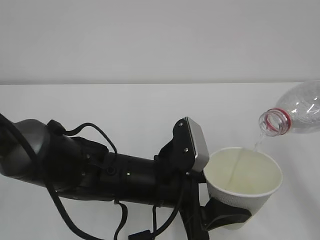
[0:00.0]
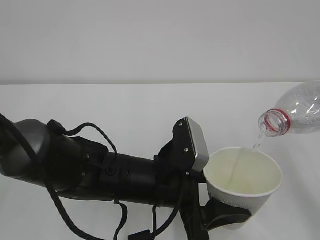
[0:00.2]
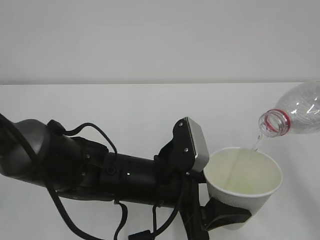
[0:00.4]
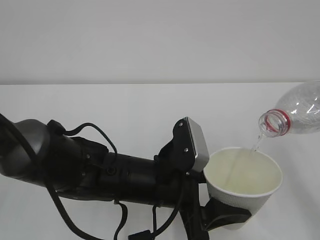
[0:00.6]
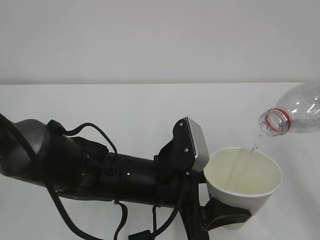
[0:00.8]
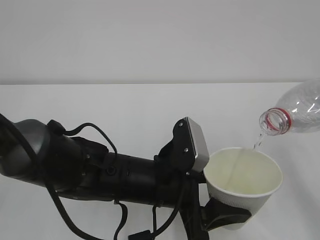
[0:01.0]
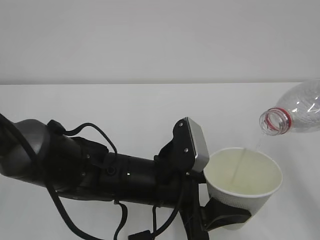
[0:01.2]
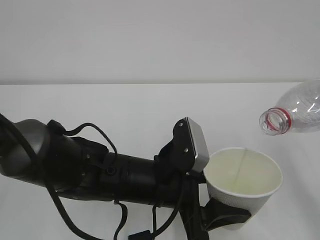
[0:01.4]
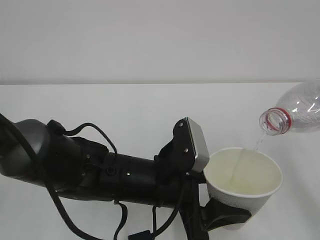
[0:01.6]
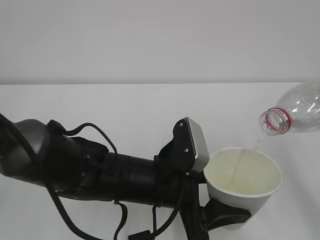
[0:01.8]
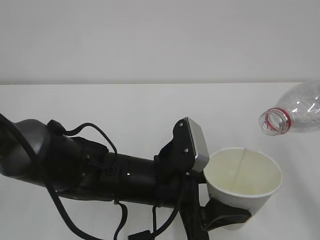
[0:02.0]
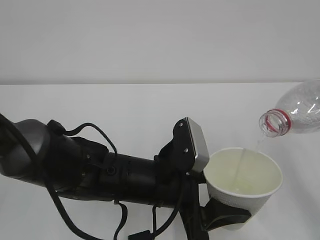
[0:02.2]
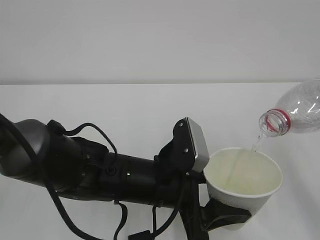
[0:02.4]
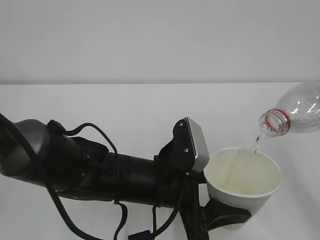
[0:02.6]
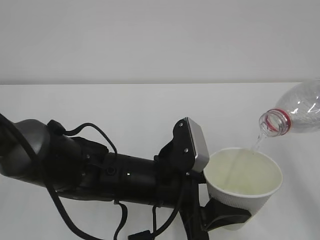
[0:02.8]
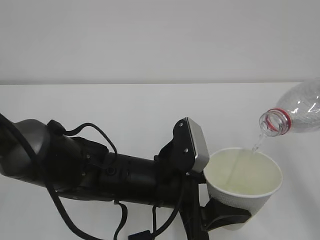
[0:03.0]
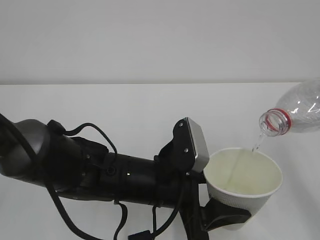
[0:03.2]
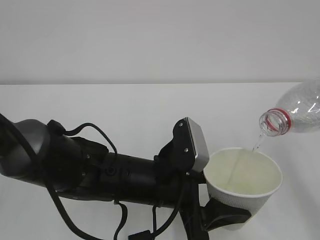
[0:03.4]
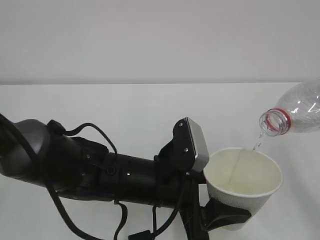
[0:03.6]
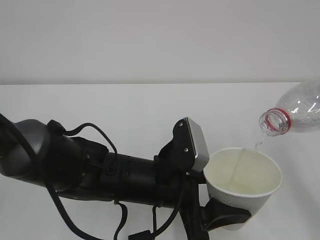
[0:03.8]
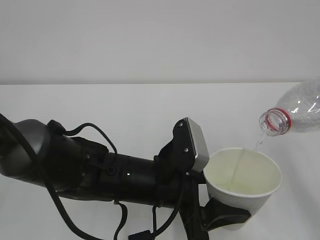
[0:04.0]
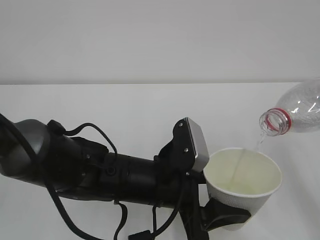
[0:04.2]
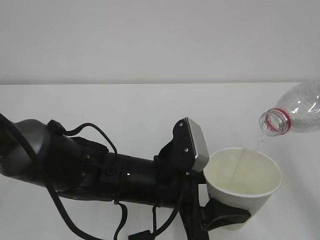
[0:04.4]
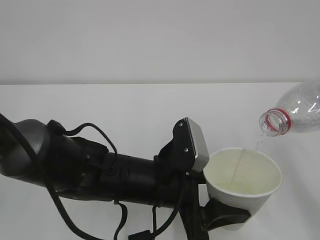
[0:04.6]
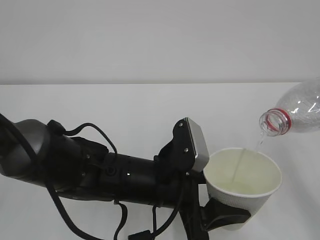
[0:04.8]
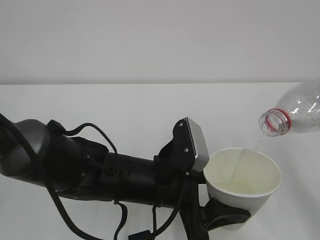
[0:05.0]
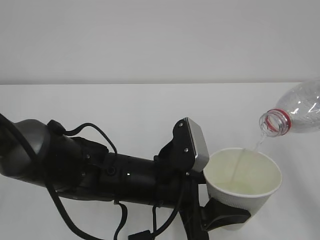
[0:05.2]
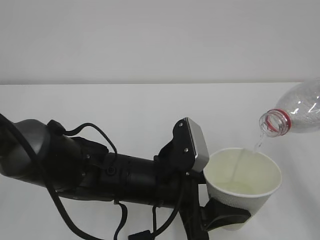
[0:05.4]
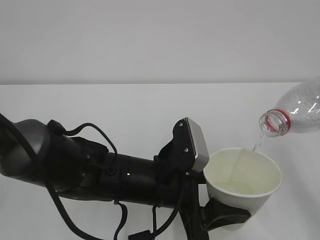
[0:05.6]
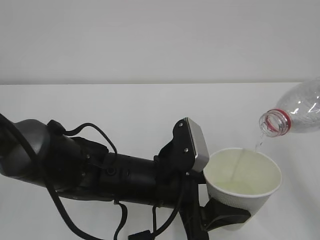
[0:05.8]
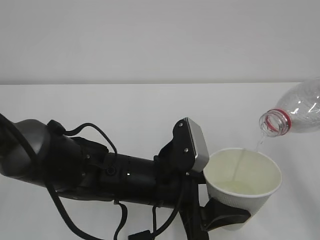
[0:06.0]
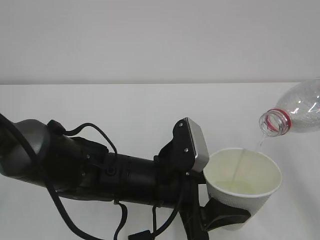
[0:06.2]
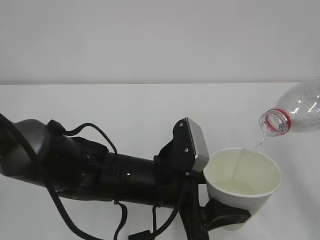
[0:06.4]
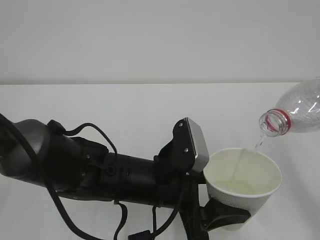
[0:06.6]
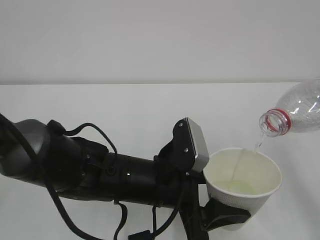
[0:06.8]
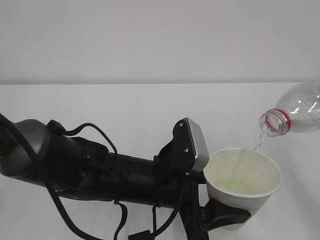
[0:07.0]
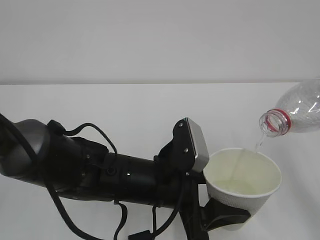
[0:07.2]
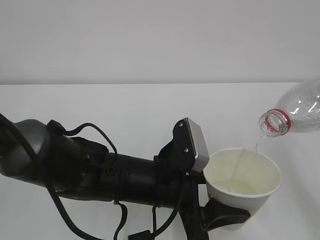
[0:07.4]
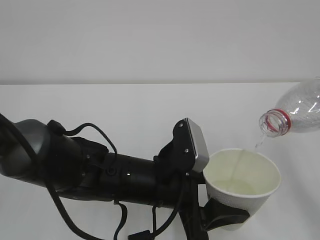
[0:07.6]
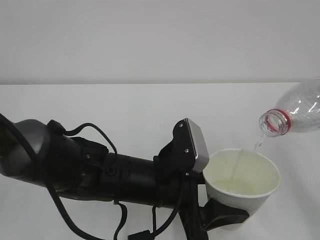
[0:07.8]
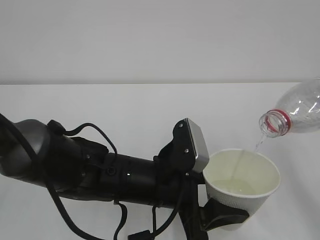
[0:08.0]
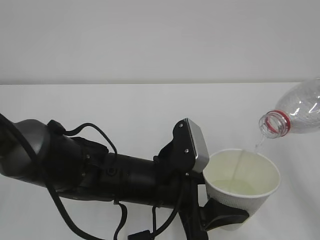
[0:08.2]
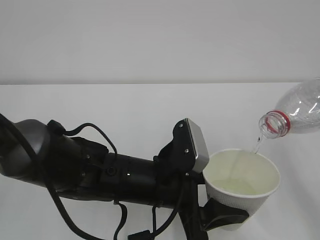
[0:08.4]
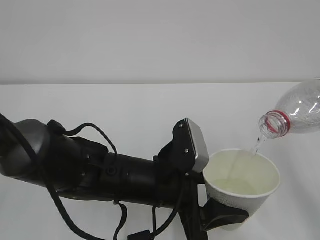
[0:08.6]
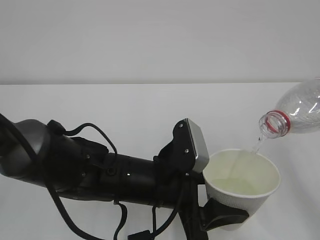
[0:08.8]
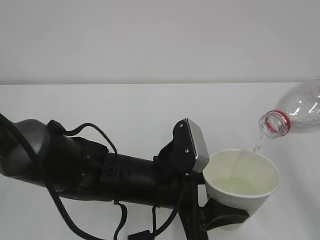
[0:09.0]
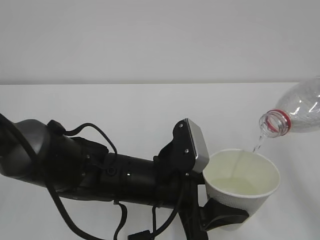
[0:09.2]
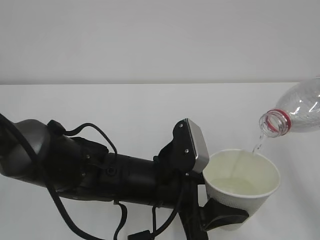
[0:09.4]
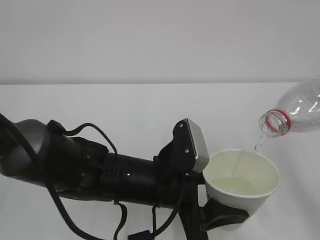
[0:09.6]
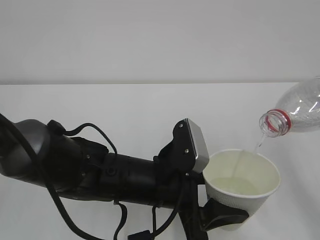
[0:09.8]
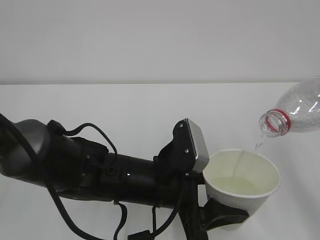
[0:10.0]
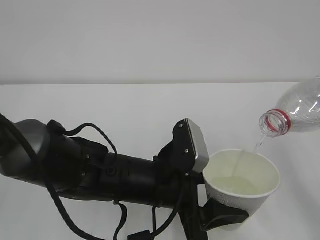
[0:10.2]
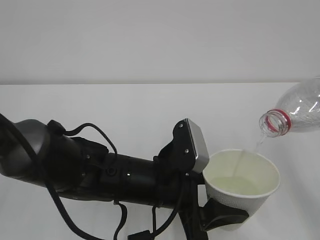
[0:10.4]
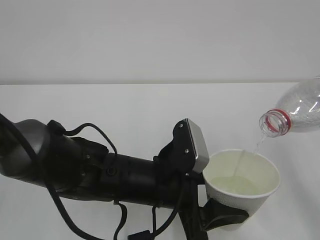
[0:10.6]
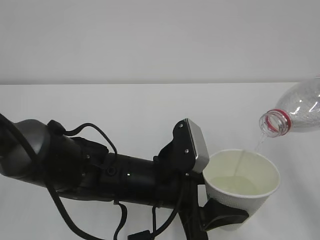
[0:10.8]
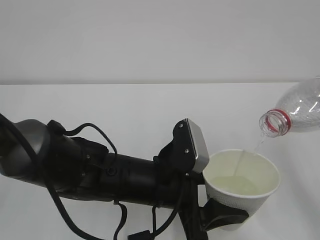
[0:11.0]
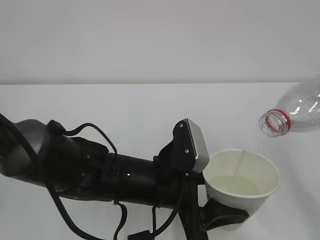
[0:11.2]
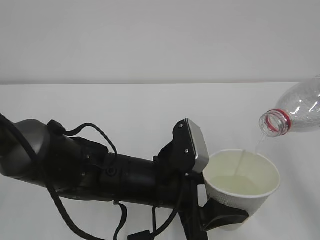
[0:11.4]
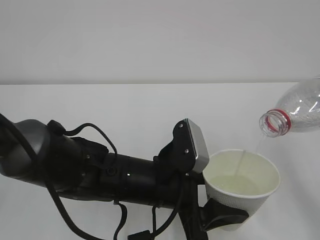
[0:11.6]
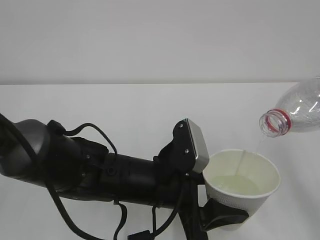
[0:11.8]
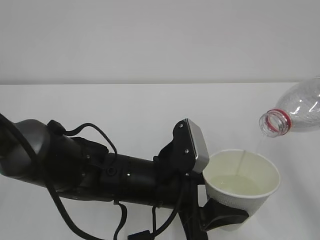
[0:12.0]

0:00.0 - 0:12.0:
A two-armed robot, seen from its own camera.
0:00.0 - 0:12.0: Neither gripper changes place.

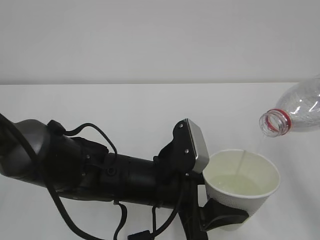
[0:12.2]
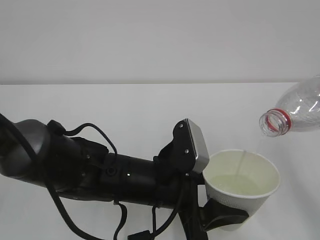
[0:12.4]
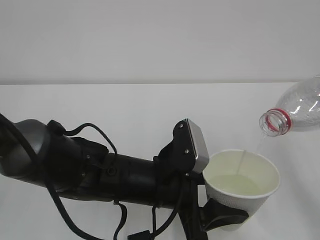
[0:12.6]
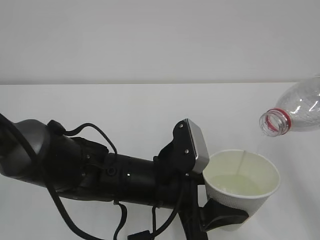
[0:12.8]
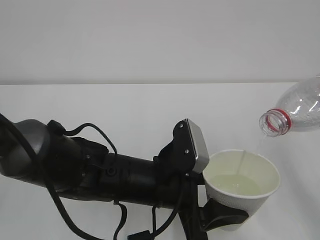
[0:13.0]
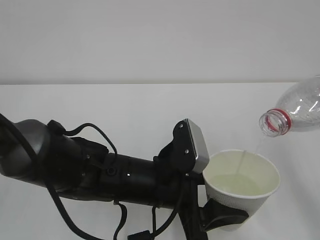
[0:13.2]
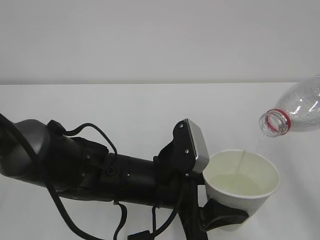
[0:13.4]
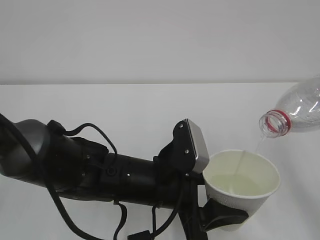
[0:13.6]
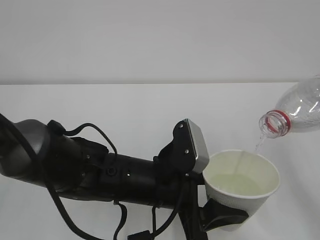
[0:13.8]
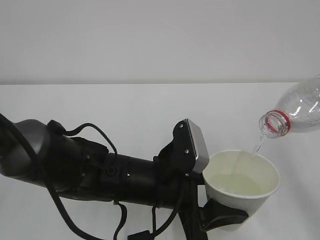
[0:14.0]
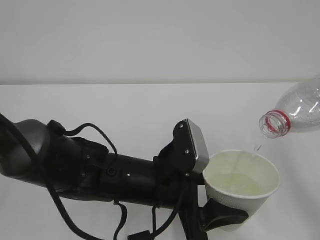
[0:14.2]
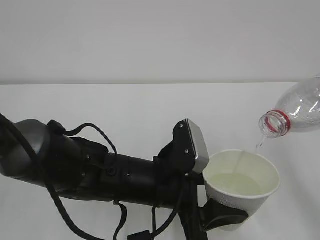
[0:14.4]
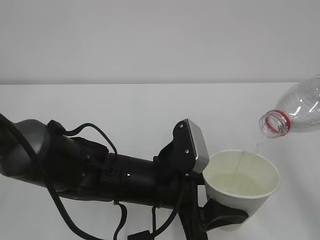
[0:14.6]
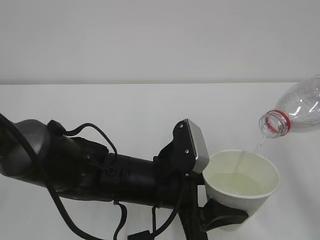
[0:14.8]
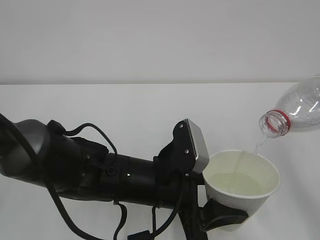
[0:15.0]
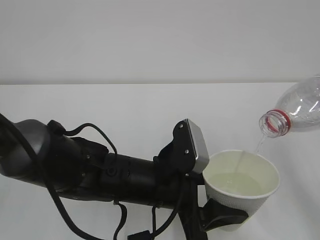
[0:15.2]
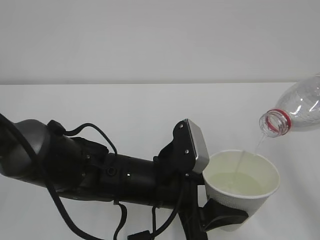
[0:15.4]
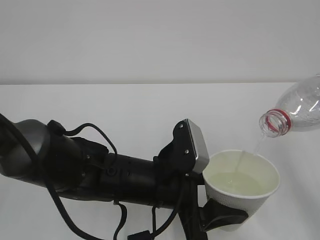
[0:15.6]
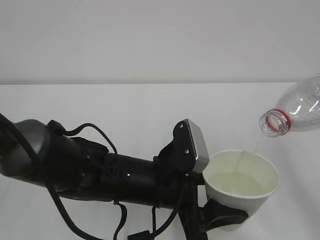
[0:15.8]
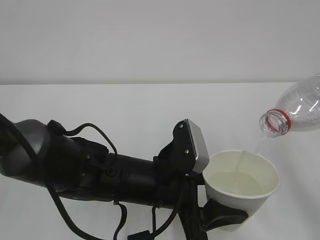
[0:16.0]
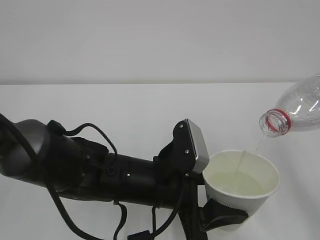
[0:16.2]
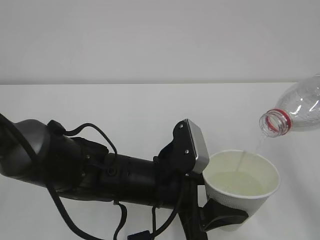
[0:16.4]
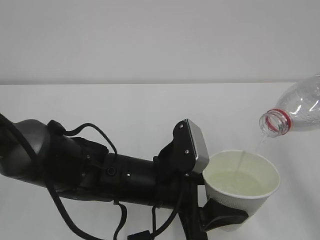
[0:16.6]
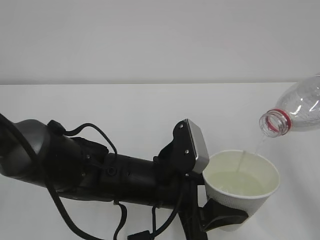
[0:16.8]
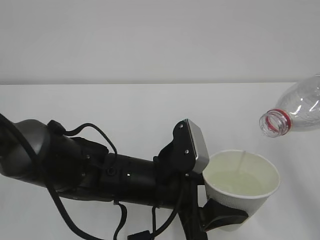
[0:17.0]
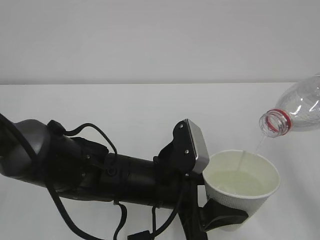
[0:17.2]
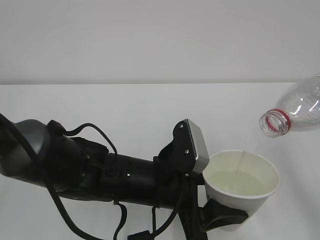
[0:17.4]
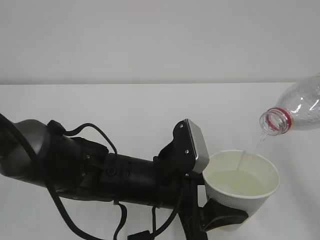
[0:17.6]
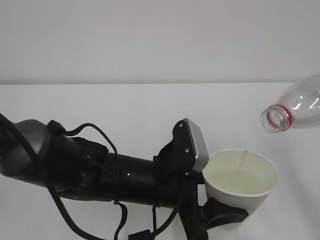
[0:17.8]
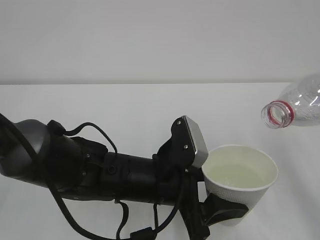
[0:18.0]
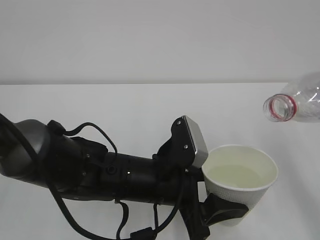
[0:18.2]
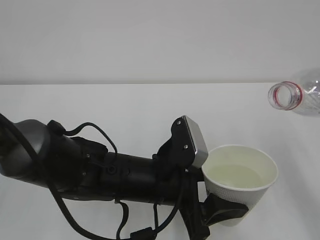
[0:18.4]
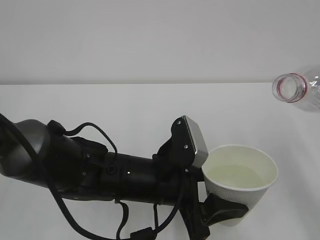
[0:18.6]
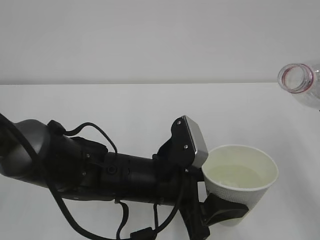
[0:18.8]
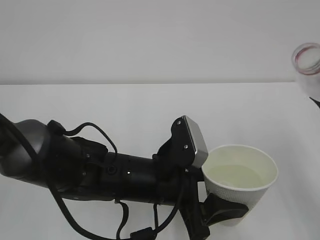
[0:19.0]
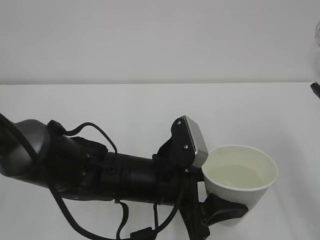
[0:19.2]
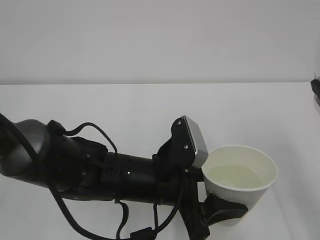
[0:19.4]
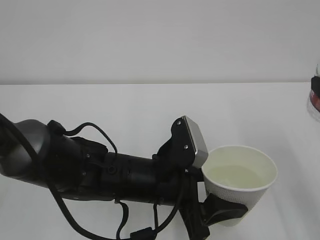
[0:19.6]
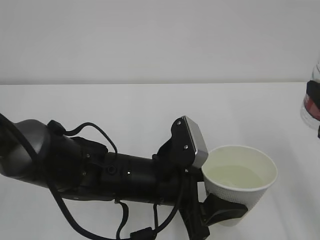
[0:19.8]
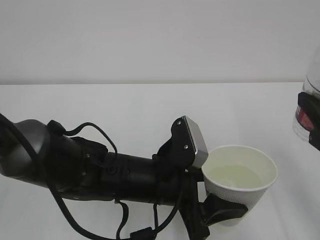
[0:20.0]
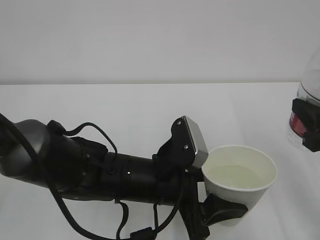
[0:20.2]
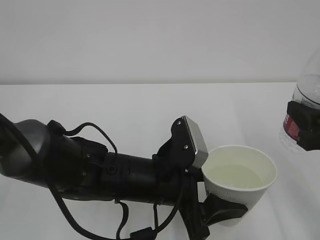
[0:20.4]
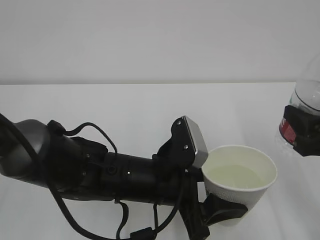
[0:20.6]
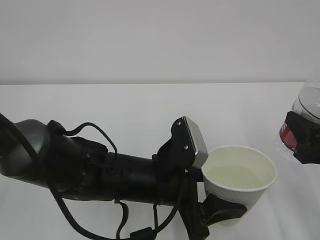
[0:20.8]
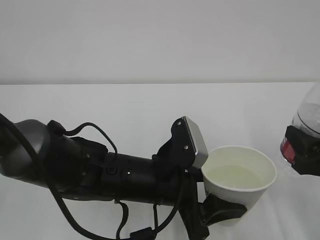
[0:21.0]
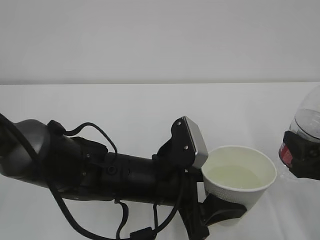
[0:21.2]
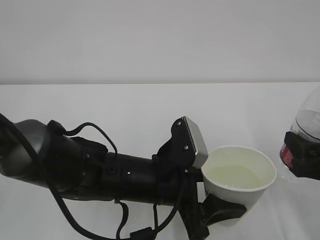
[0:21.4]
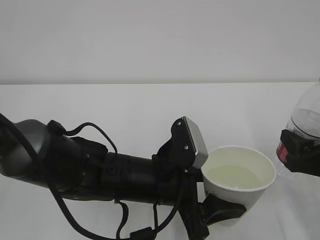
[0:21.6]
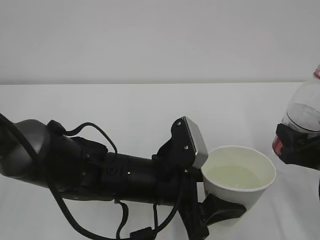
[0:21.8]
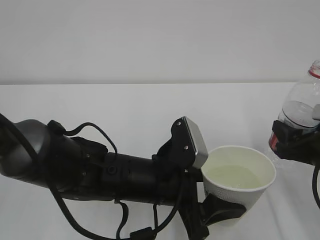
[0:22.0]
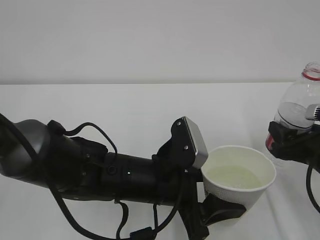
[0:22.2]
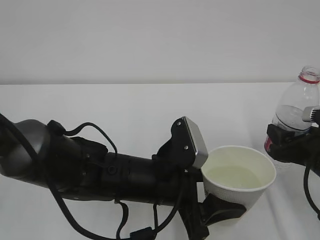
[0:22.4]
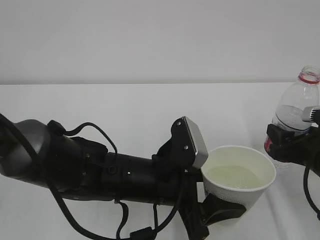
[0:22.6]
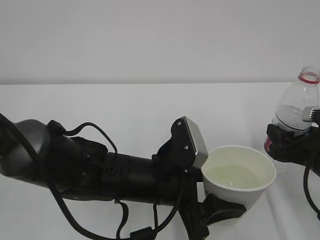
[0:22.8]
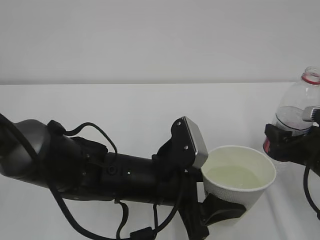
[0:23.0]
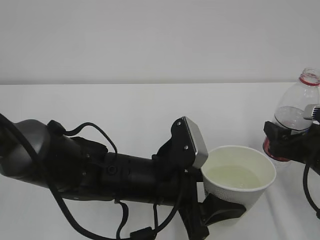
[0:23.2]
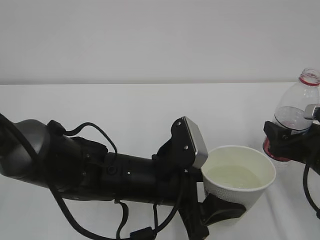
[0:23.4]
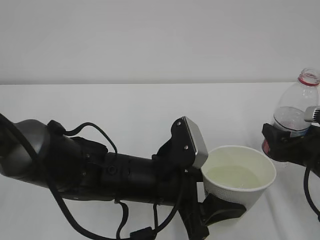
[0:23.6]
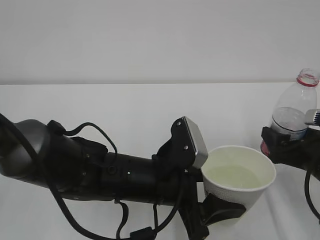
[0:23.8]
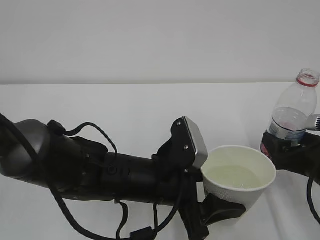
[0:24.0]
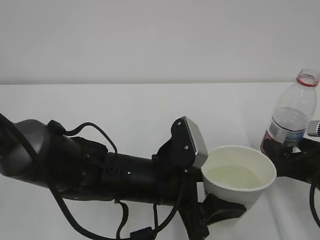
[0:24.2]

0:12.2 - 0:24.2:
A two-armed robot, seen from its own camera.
0:12.2 - 0:16.6: Neither gripper changes place.
0:16.6 - 0:18.2: The grippers stay close to where they were, moving slightly.
0:19.8 - 0:21.2: The right gripper heads downward, covering about 10 cm.
0:21.2 - 0:22.6: The right gripper heads forward, covering roughly 5 cm.
0:22.6 - 0:24.2: The right gripper opens.
